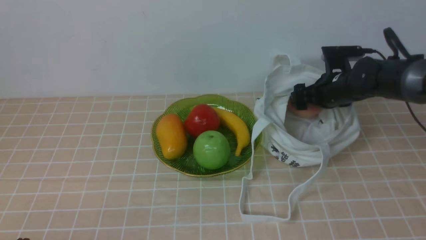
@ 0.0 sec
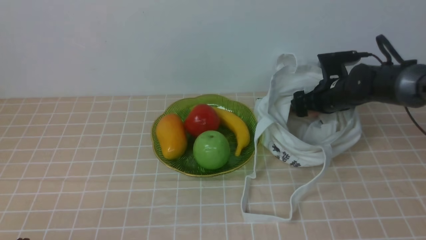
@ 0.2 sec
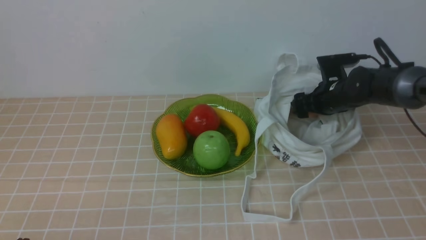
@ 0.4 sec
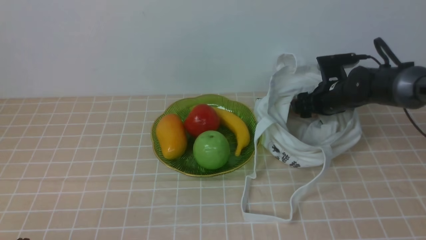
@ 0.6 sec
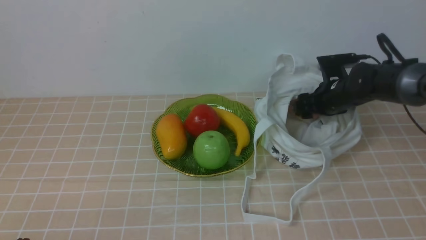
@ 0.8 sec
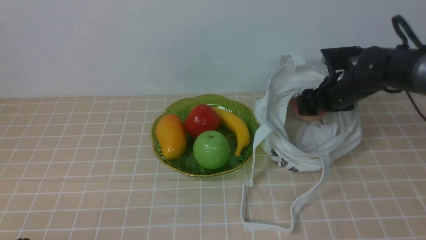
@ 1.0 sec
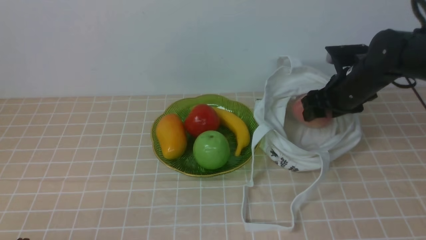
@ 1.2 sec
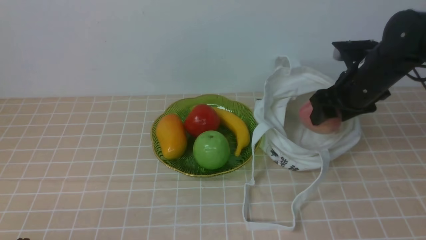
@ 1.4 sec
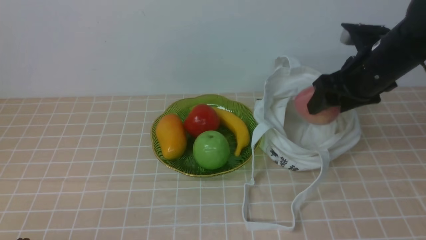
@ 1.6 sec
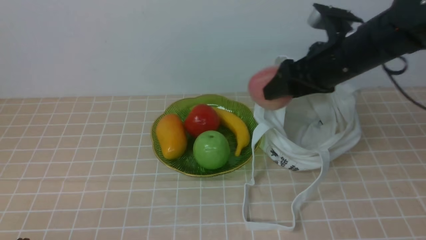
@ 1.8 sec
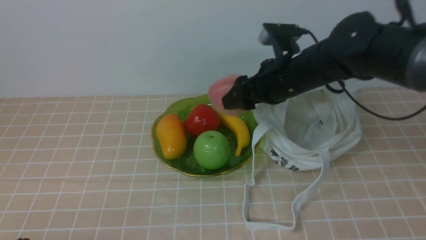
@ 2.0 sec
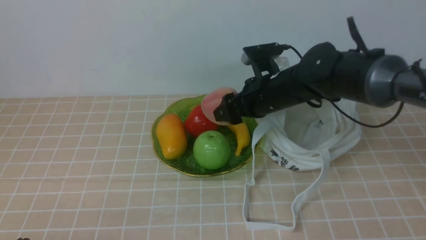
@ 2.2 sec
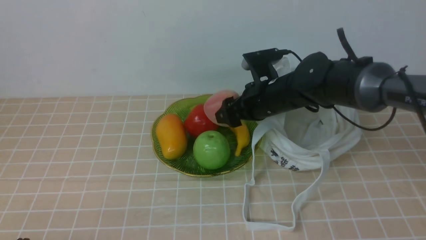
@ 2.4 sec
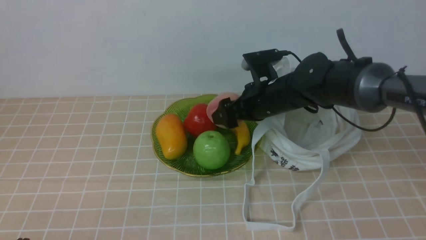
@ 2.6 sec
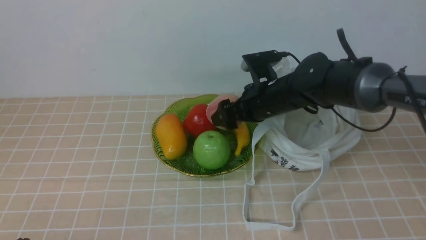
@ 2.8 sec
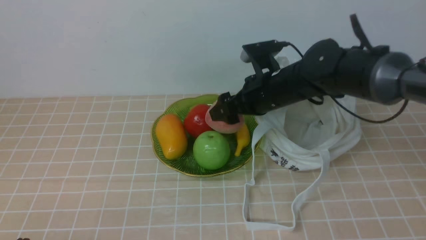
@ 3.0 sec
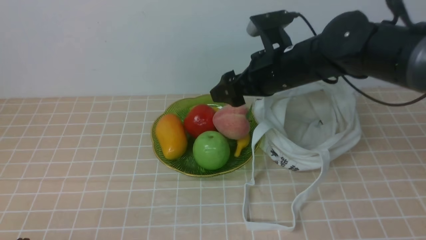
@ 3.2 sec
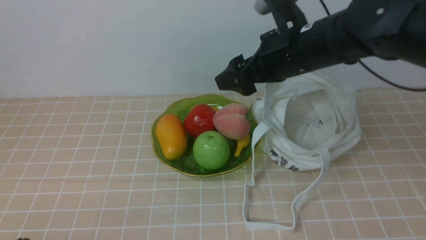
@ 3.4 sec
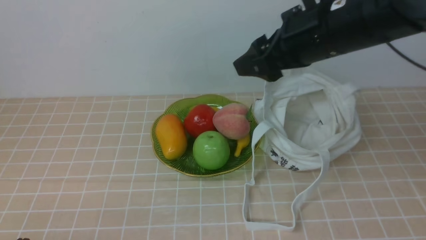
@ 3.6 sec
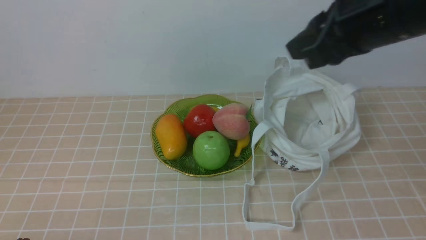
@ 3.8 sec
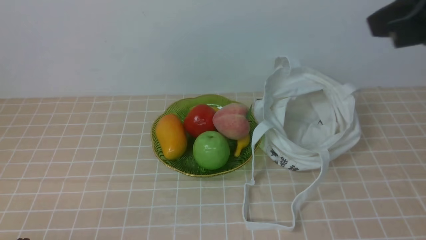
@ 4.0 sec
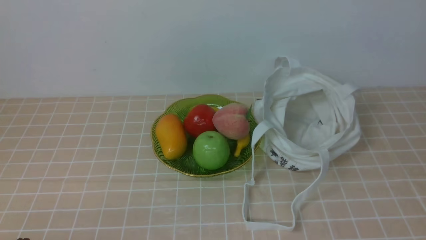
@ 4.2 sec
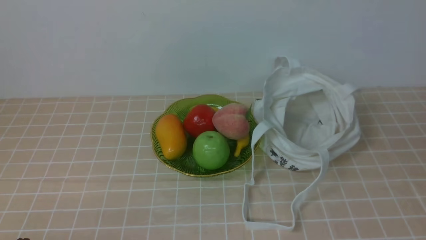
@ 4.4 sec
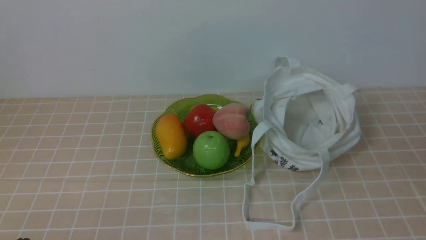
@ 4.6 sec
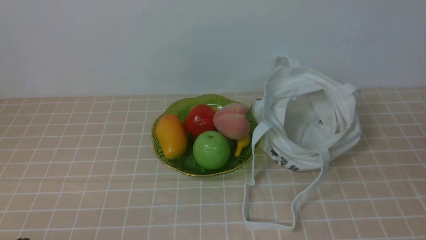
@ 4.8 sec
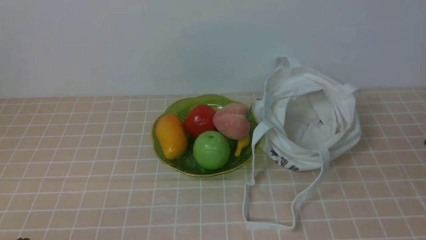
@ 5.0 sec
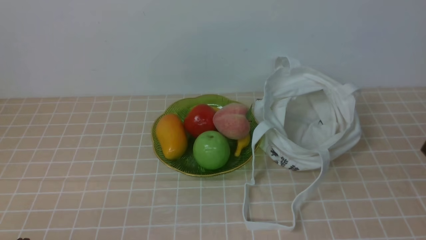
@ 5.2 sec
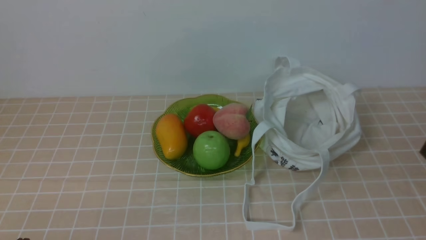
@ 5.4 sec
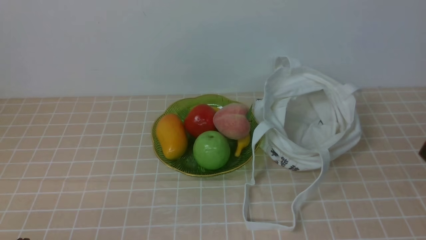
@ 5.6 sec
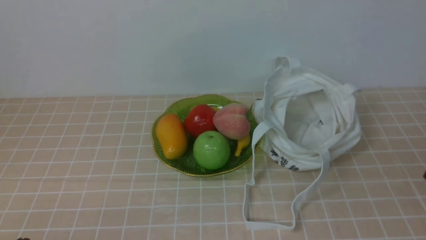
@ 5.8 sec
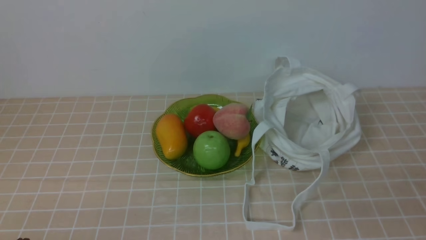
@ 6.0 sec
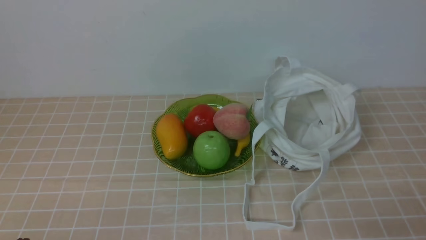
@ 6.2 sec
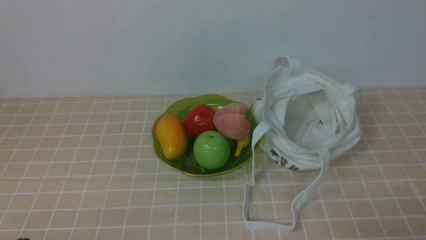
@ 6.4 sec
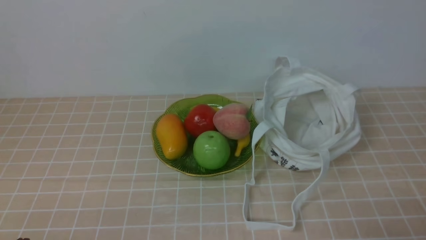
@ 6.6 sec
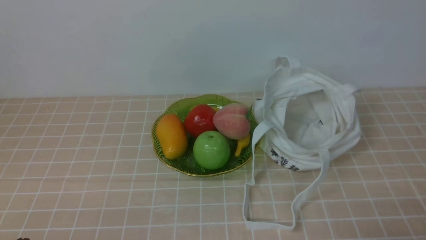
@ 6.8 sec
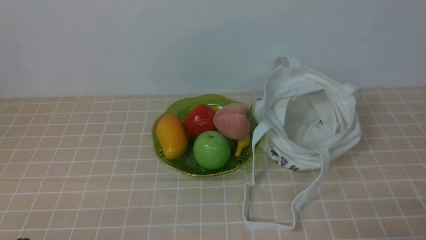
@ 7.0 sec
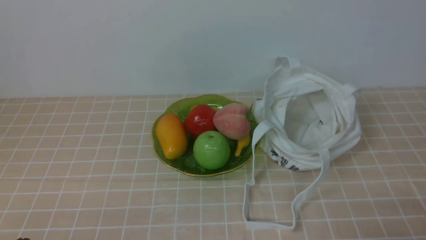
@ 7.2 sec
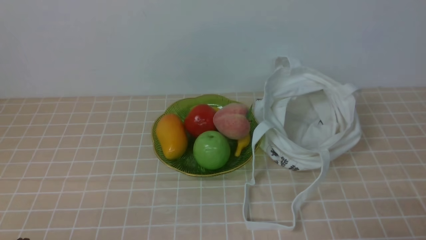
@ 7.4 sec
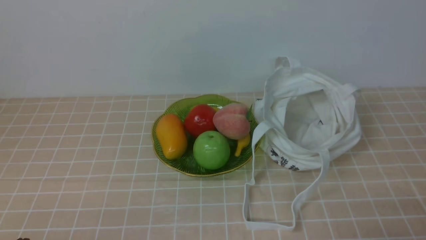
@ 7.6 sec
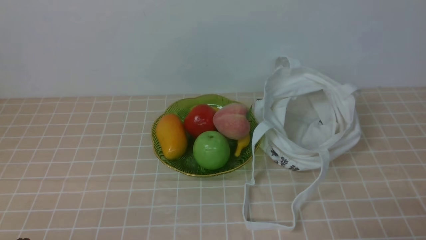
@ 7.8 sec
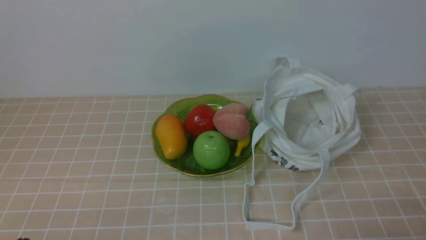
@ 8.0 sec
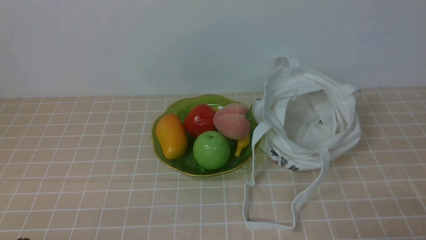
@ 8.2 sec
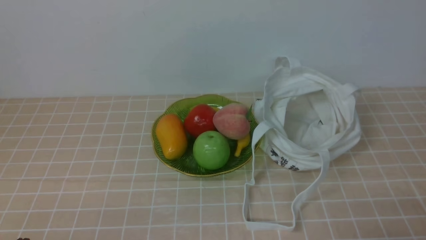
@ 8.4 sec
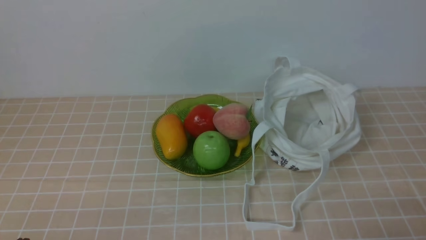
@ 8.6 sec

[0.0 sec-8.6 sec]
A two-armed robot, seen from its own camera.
Step, 1.2 sec to 3.0 sec: use the right arm to put the peach into the empty plate on the left.
0.0 sec to 1.4 sec: The right gripper heads upward and backward, covering some 10 cm.
1.4 sec to 2.8 sec: The right gripper heads to the left, covering roughly 15 cm.
2.8 sec to 4.4 sec: The right gripper goes approximately 40 cm backward, upward and to the right, and closes up.
7.2 sec to 8.6 sec: The two grippers keep their place.
